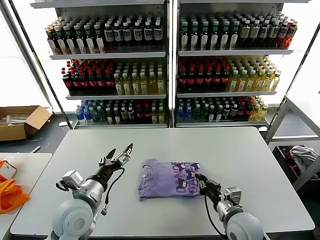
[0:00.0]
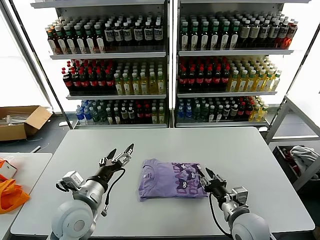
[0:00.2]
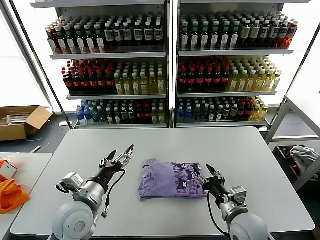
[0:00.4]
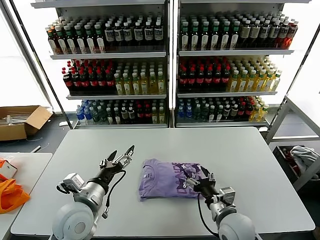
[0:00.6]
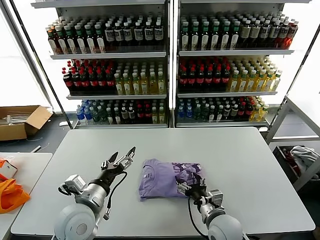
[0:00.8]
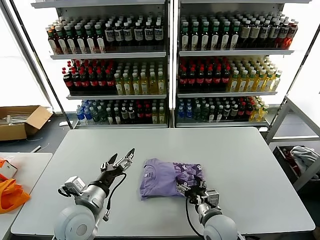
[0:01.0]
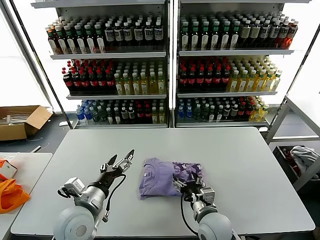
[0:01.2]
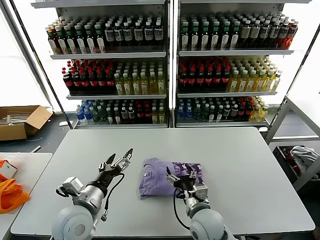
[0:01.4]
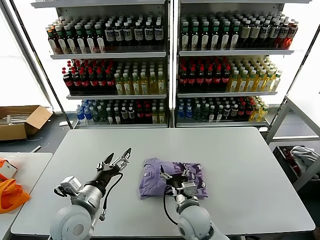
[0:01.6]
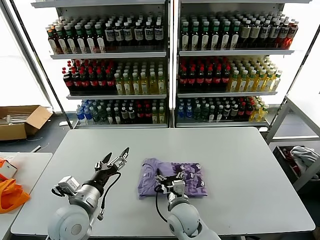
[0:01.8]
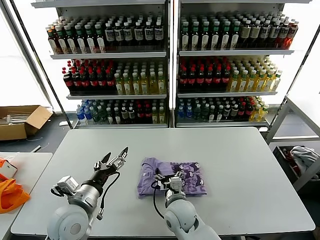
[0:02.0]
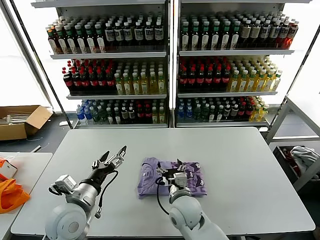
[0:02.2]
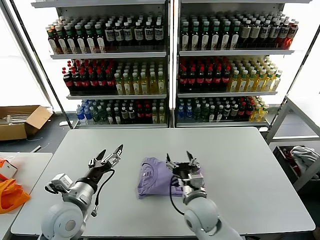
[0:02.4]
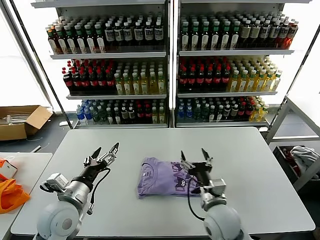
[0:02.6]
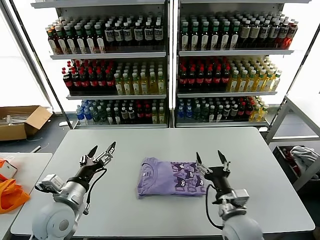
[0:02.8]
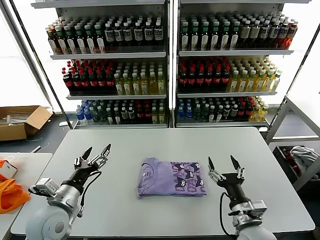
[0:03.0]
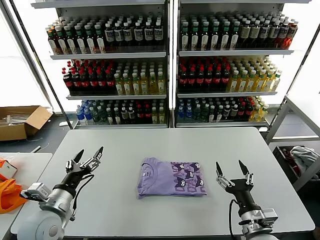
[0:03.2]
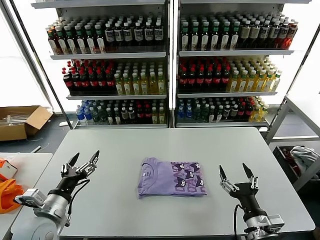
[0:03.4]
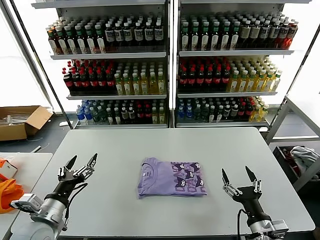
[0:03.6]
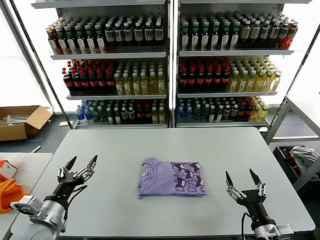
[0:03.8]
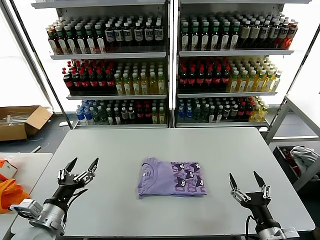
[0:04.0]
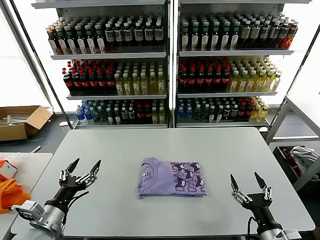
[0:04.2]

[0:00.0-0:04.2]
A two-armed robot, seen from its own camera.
Task of the whole recording: fold and organize the clothes.
Step, 0:00.0 to 0:02.2: Drag the clothes to the center of the table.
0:00.0 to 0:01.4: The right gripper is displaced to the left by approximately 10 cm, and opens its fingers.
0:01.4 to 0:02.8: The right gripper travels to the right by roughly 5 cm.
0:02.8 to 0:04.2: The right gripper shifts approximately 15 cm to the right and backward; the left gripper moves backward and to the left, approximately 10 cm.
